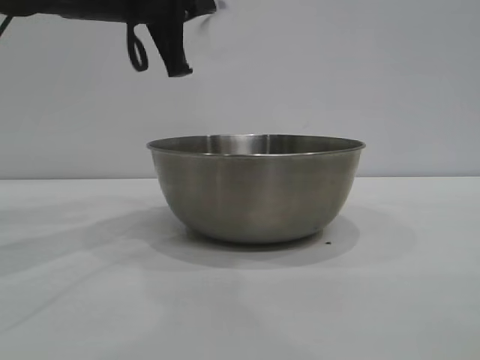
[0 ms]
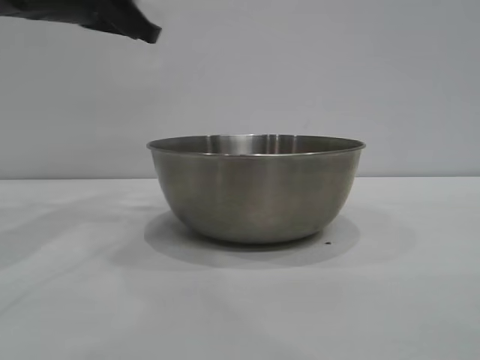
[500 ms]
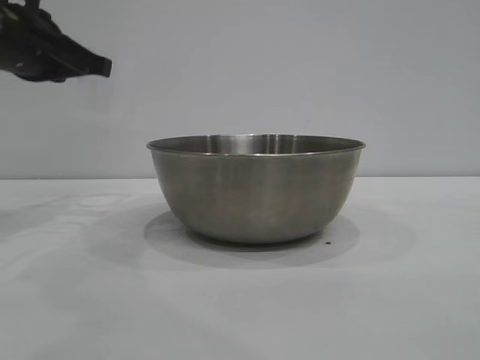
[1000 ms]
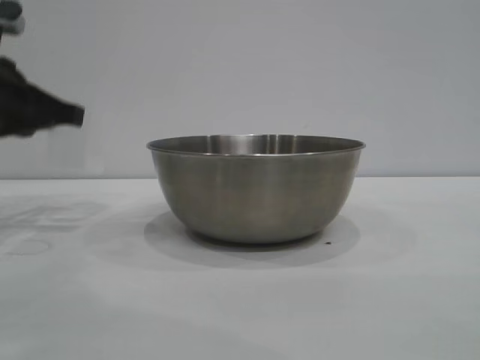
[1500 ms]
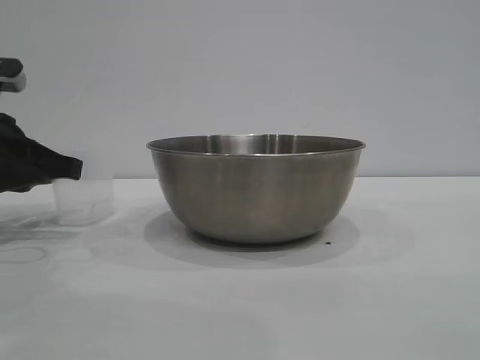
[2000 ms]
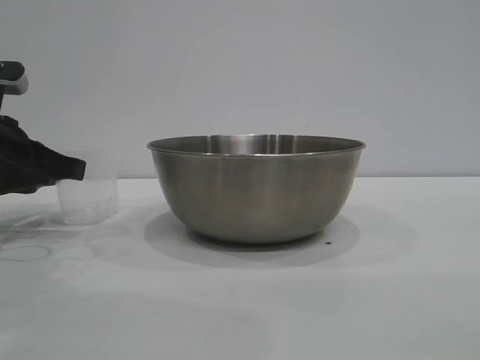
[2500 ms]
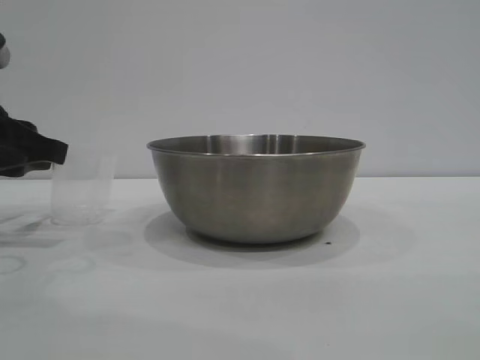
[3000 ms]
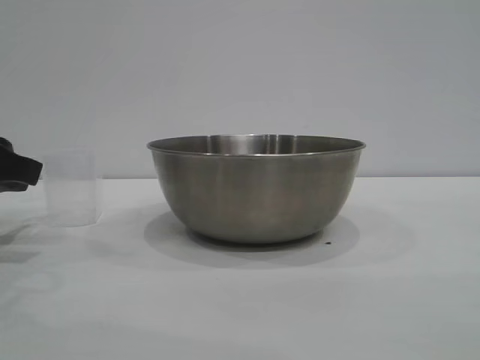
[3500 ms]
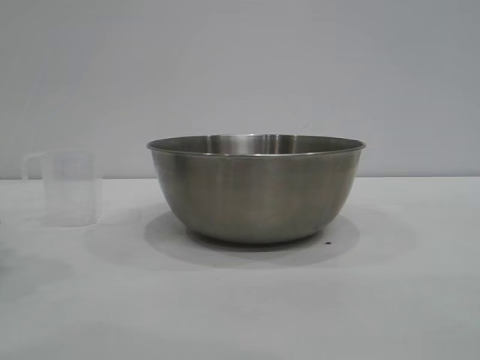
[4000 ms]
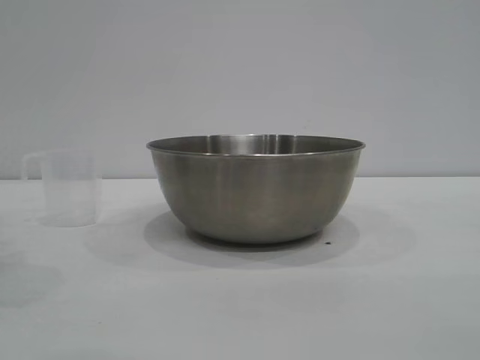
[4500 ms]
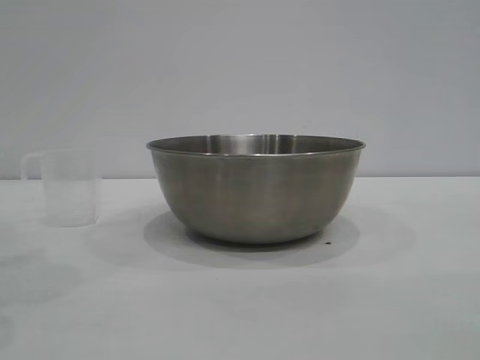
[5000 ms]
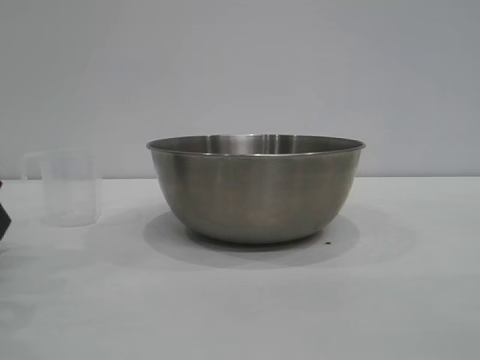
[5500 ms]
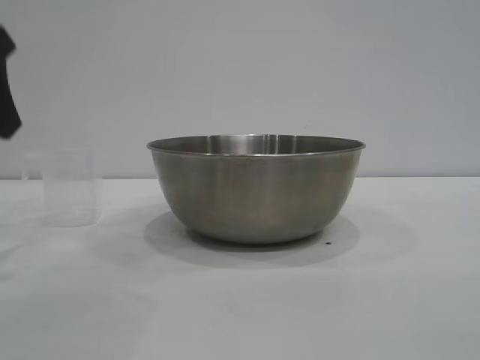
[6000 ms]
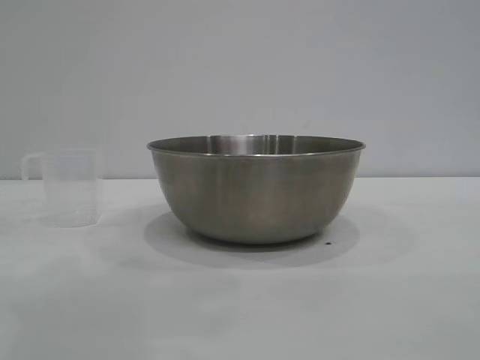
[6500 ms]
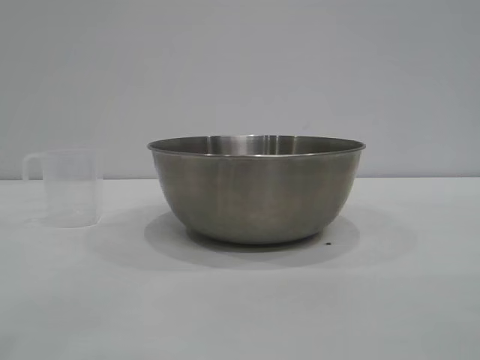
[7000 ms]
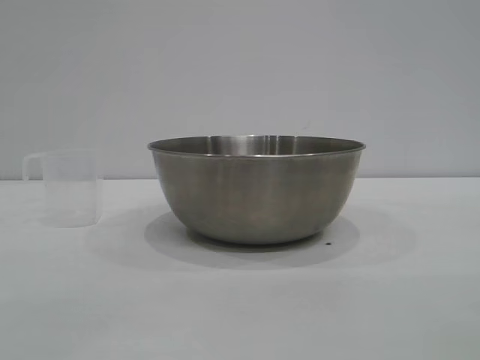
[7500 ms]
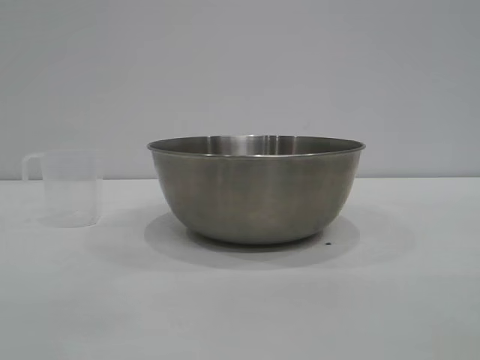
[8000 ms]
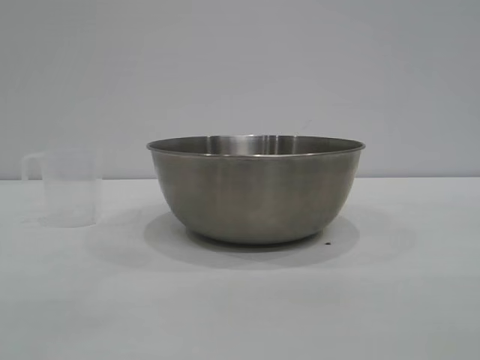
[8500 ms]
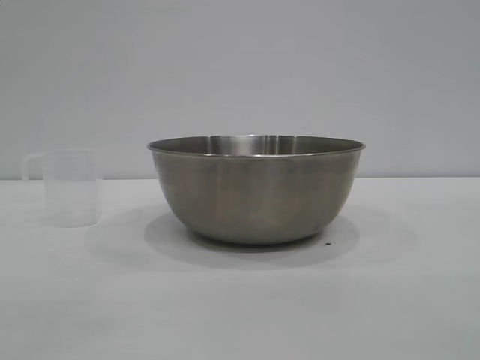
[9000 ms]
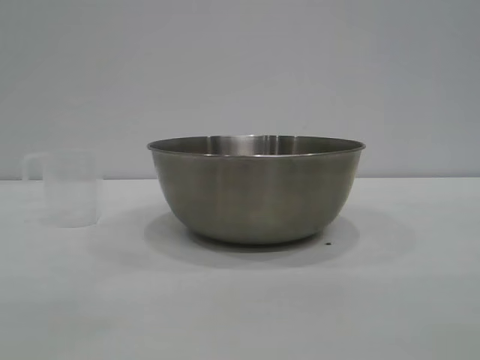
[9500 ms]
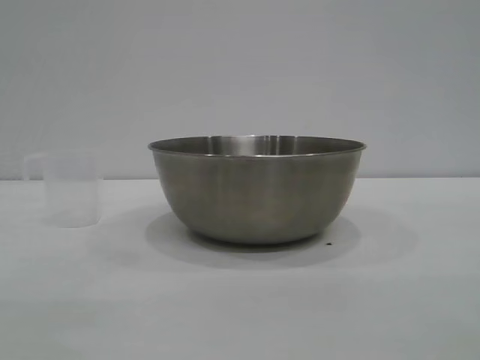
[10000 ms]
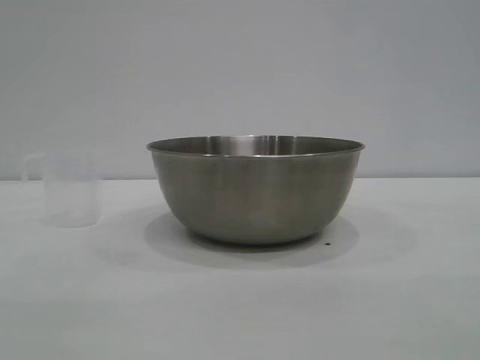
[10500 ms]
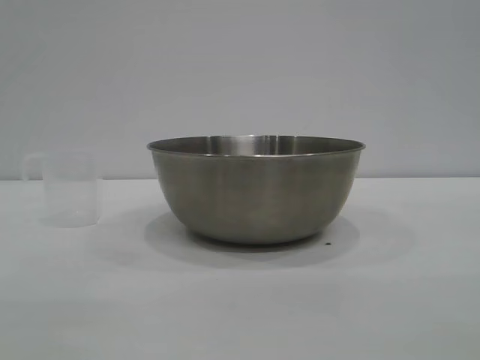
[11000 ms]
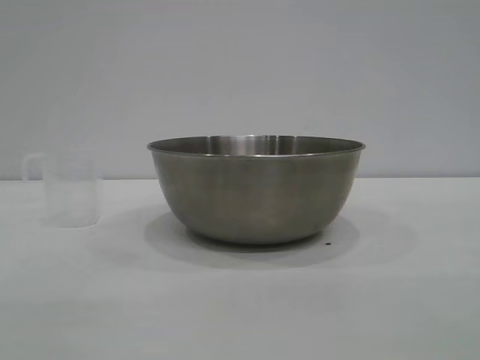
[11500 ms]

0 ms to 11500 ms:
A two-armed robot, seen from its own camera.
Task of the whole recording: the right gripper grasp the rice container and place it in the center of the table, the left gripper grasp the rice scoop and pour the rice into the rice container.
Step, 0 ms to 3500 ms: Place the cup on the table with the left gripper.
